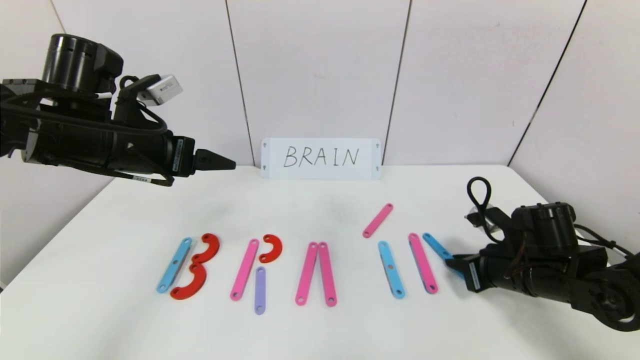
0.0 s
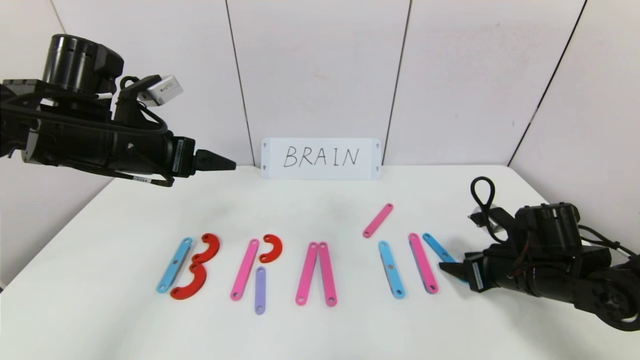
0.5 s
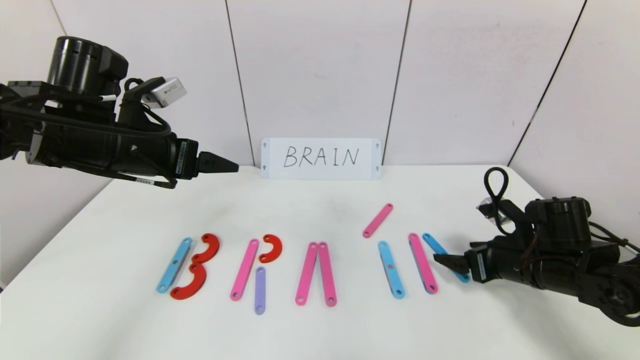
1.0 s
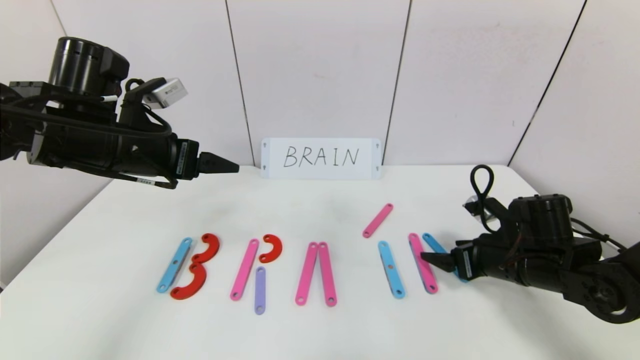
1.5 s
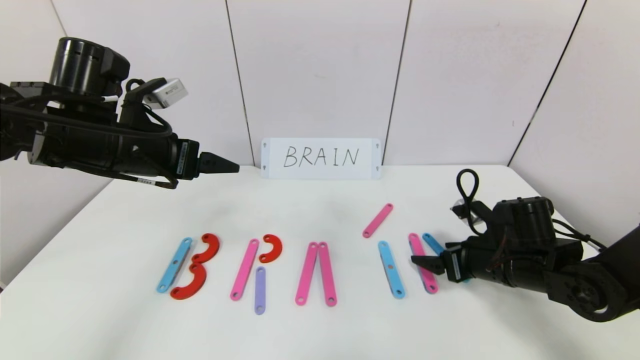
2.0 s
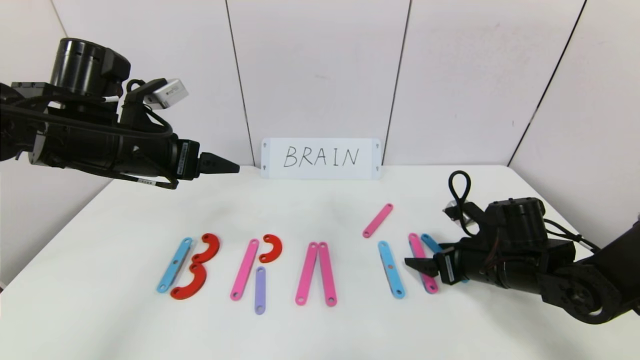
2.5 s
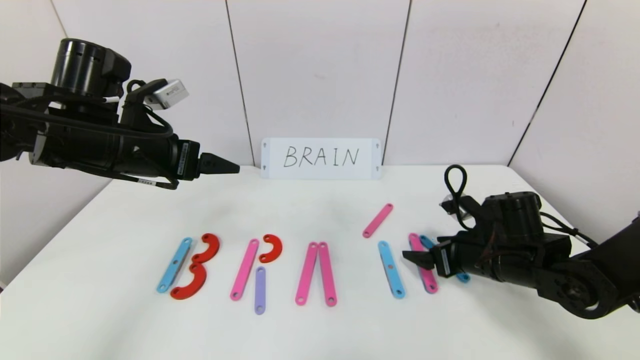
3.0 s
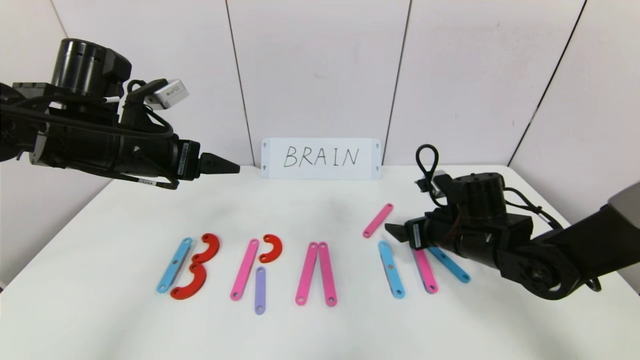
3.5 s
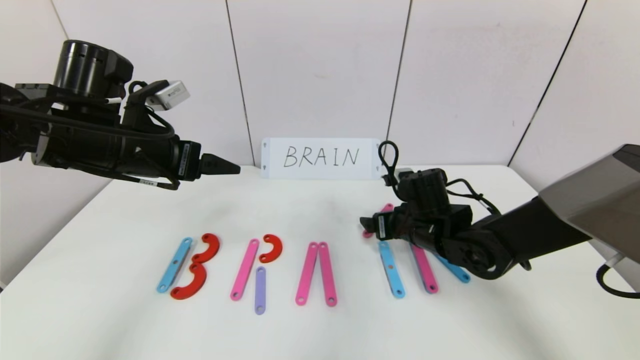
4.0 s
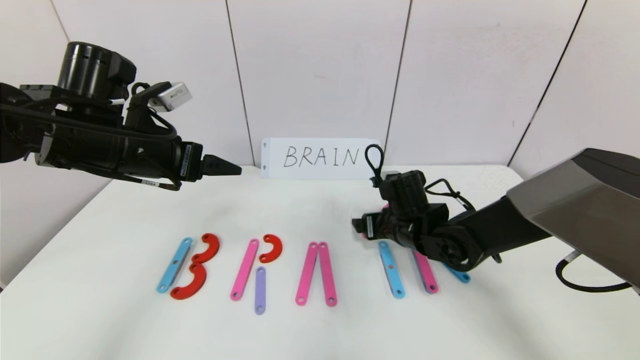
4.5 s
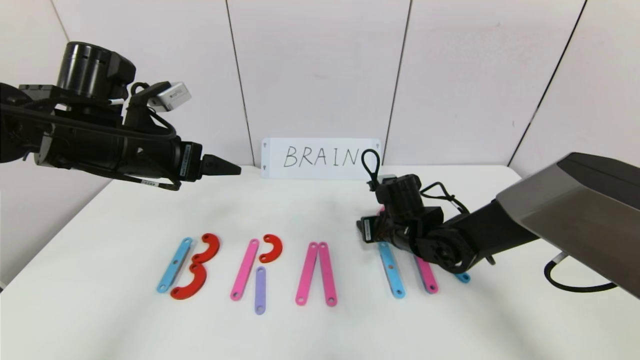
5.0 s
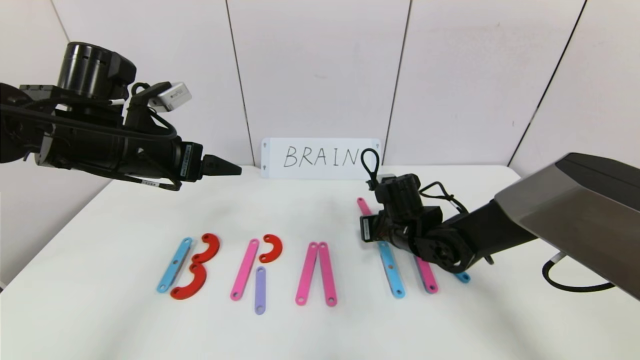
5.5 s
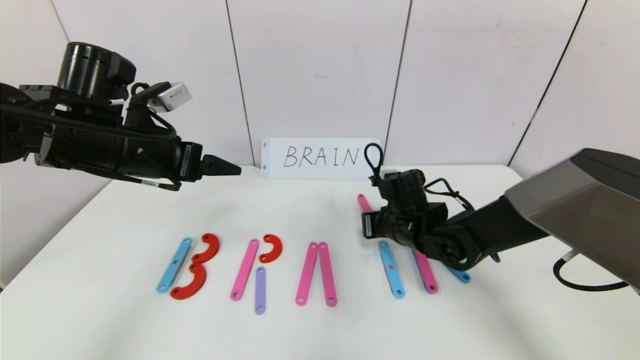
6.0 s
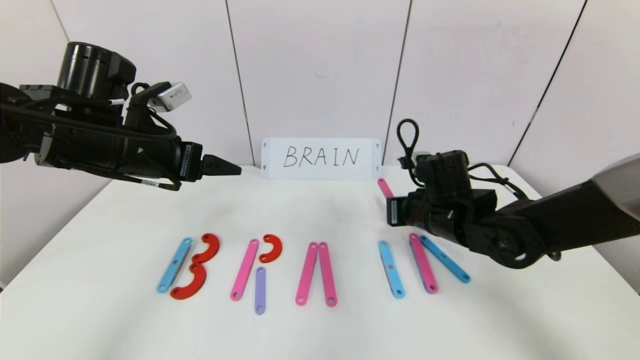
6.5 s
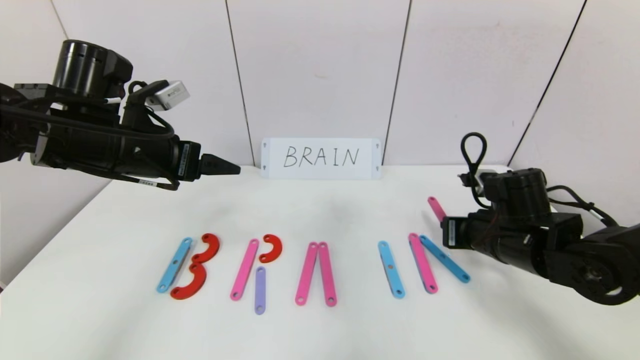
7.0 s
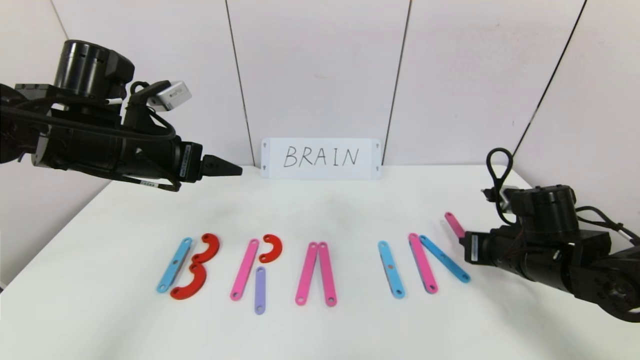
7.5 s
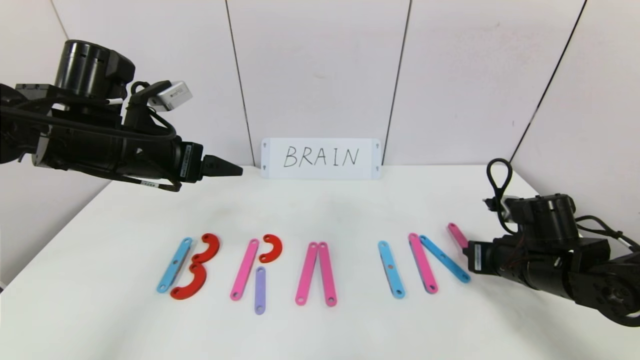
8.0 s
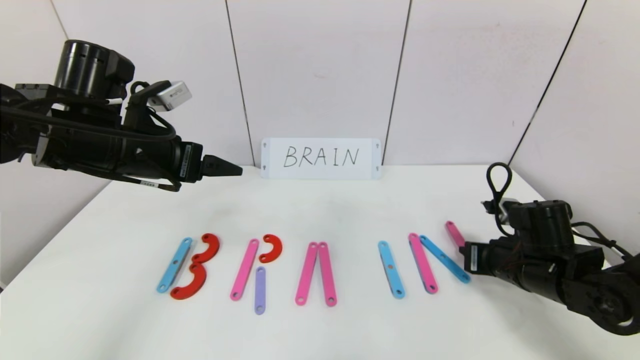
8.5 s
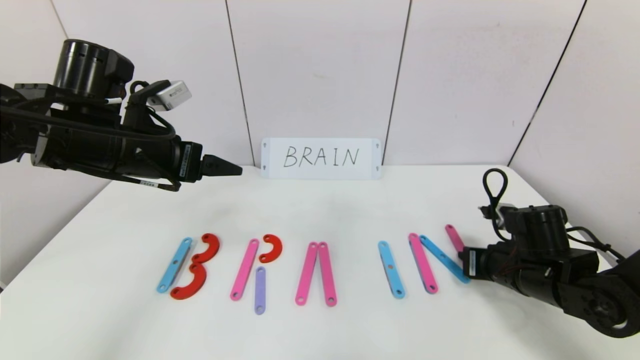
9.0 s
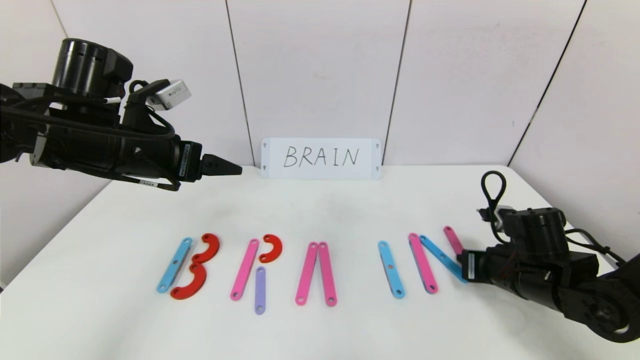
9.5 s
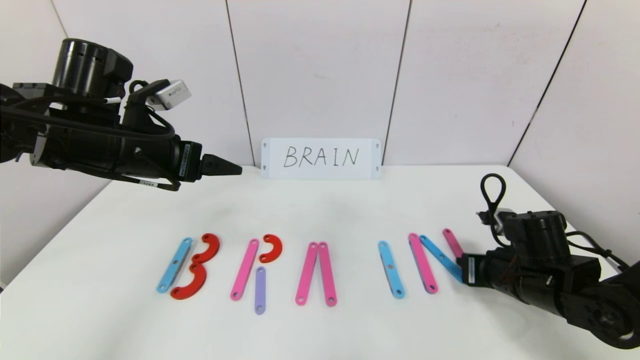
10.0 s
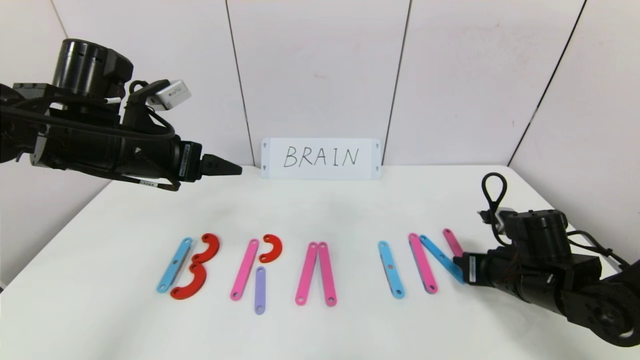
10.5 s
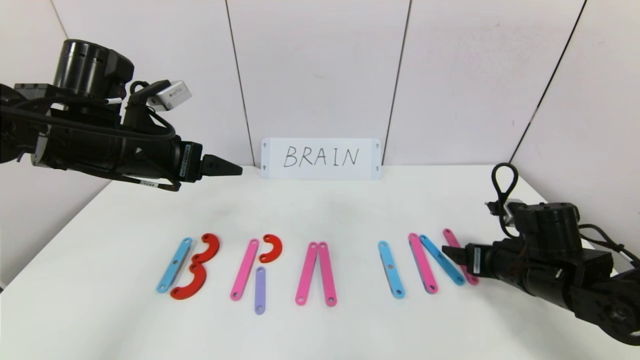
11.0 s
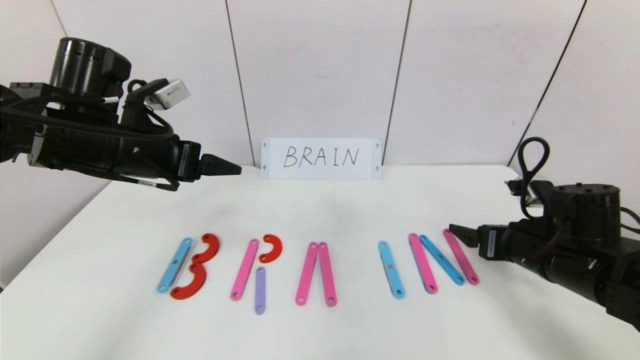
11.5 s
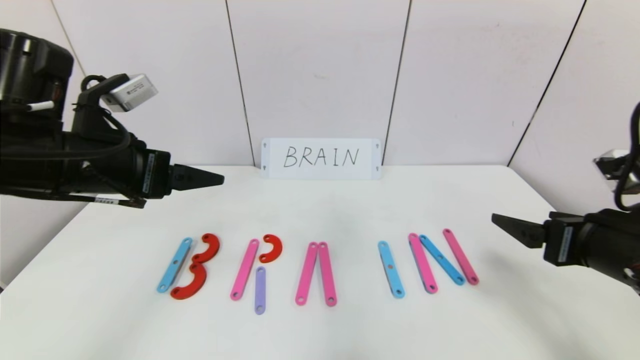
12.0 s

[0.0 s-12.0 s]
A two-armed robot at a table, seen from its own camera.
Task of the whole recording: rearrange the word baai as brain.
Step, 0.0 to 11.0 s: Place the character N after character I.
0.0 to 2.0 s: The right gripper opens.
2.0 to 4.0 s: The right gripper shifts about 15 cm to the left and forward.
4.0 to 6.0 s: The right gripper closes its fingers.
6.0 to 8.0 s: The right gripper shifts approximately 15 cm to the right and backward.
8.0 to 10.0 s: The grippers move only a little.
10.0 to 12.0 s: The right gripper moves upward and backward, approximately 15 cm, and opens its fingers. Meanwhile the left gripper travels backward by roughly 5 cm.

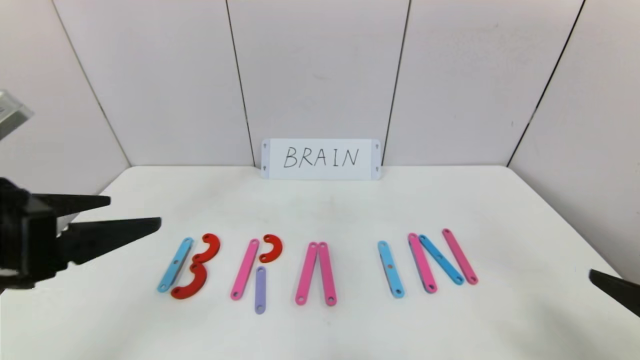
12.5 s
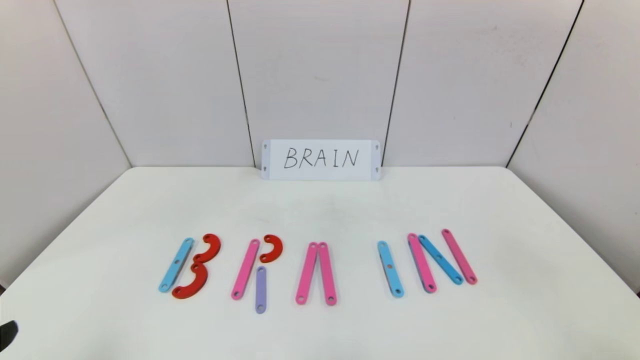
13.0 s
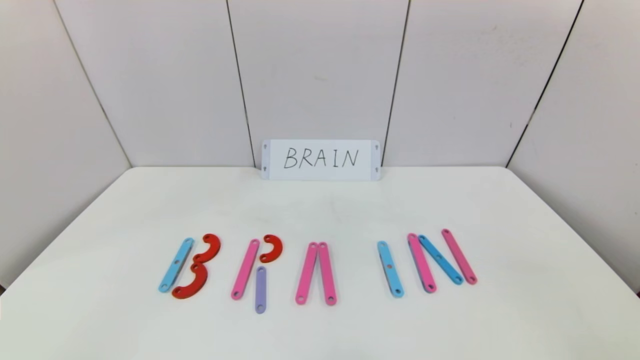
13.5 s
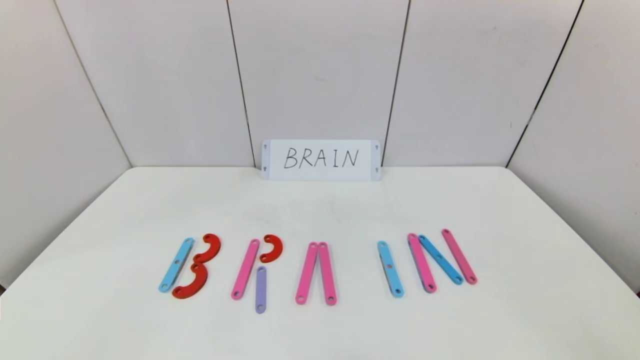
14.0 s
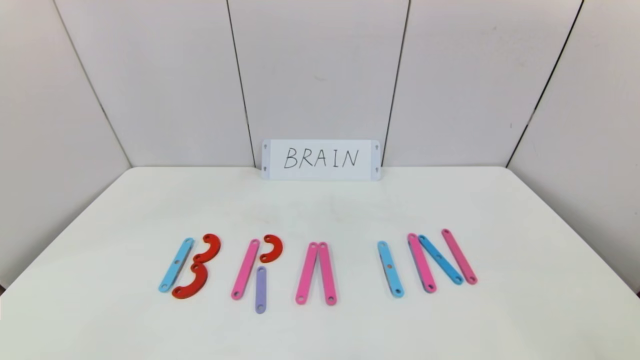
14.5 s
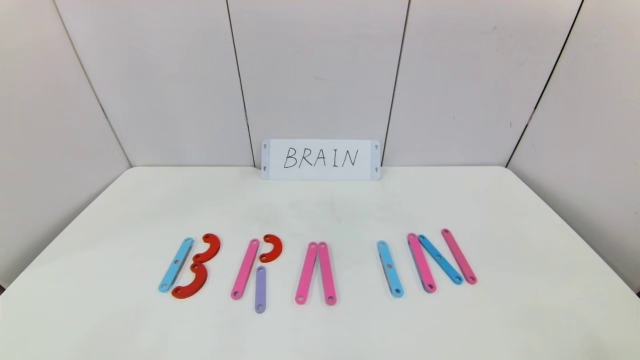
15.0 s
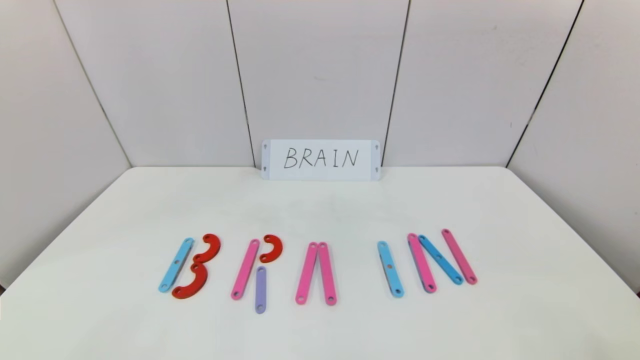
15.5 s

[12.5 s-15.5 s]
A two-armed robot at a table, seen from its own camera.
Task of the whole recording: rearrange the word baai as brain.
12.5 to 14.0 s: The left gripper travels backward and downward by approximately 20 cm. Meanwhile the right gripper heads backward and downward, covering some 15 cm.
